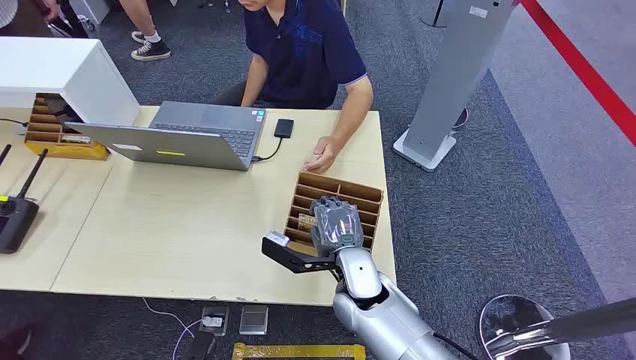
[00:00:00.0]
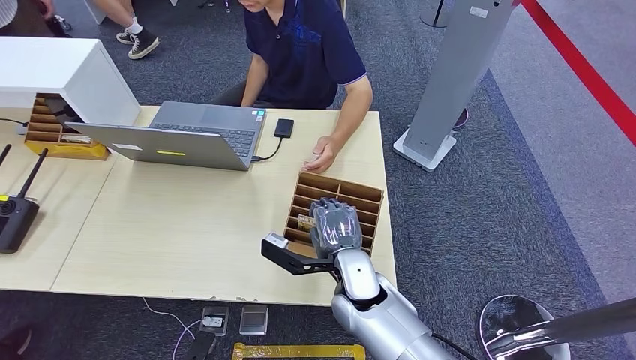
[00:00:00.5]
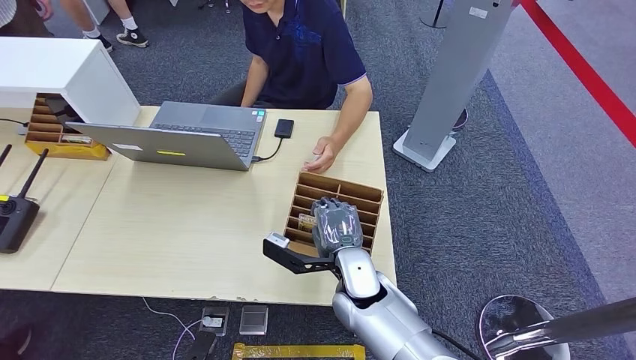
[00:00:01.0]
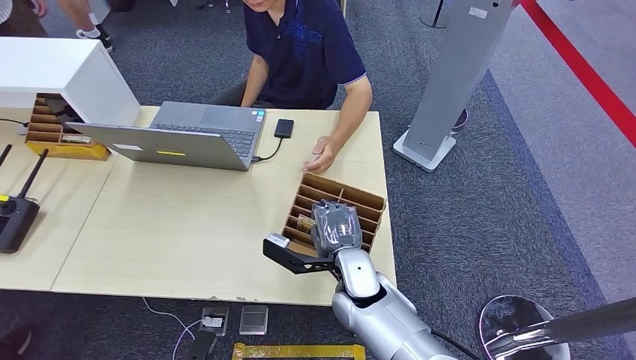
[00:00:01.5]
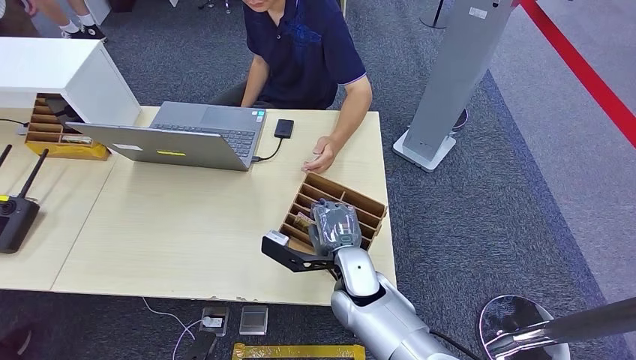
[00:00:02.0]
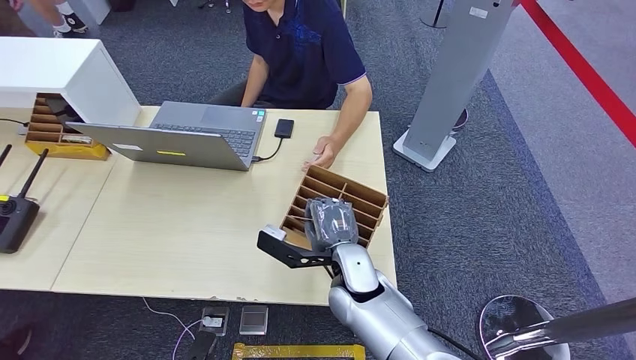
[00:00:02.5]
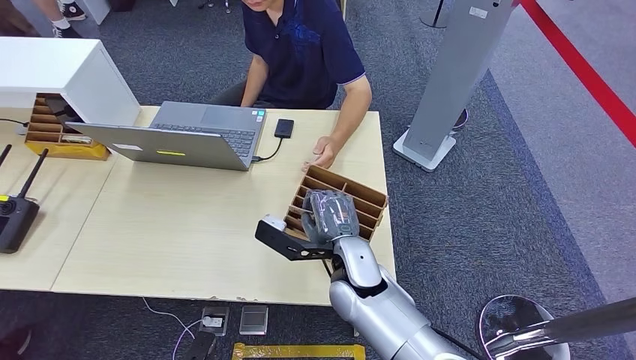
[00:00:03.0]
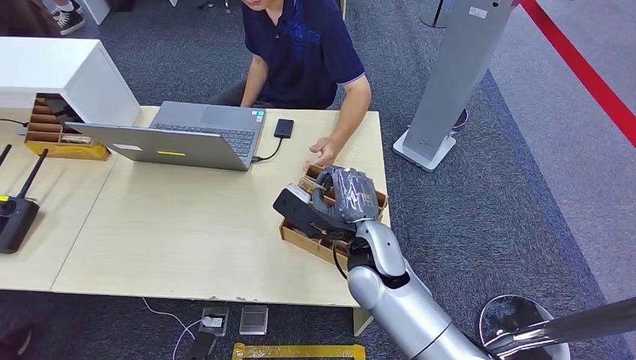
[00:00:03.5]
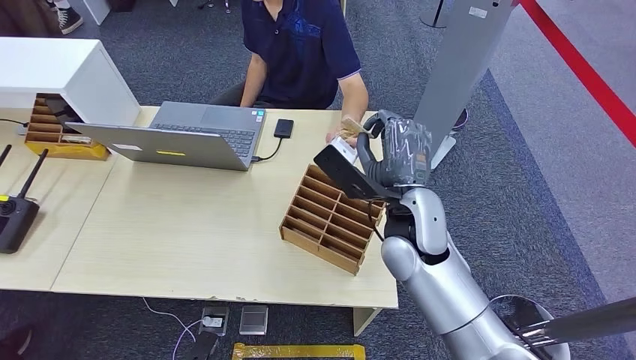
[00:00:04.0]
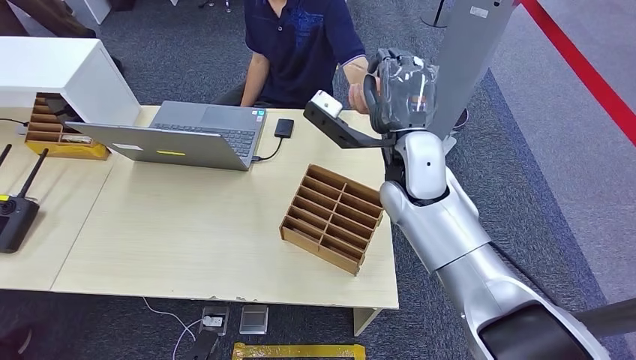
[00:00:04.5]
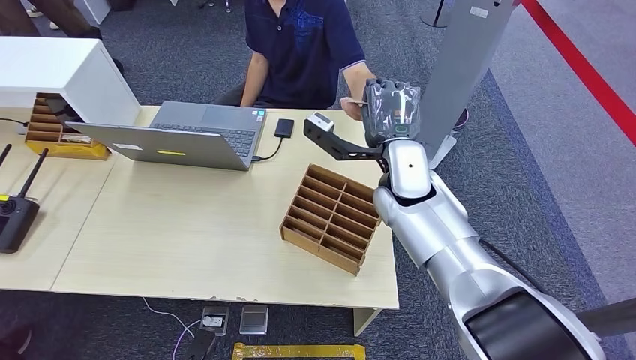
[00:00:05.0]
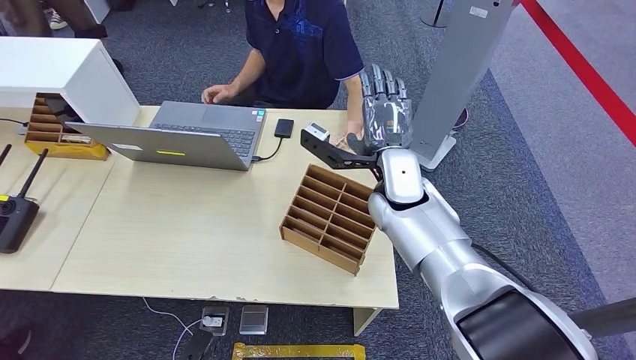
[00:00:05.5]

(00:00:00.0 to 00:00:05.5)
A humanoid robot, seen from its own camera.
Step, 00:00:00.0 - 00:00:03.5: Pick up the room card from the card holder.
Step, 00:00:04.5 - 00:00:05.5: Hand the room card to the target.
00:00:02.0 - 00:00:03.5: The right hand moves upward and to the right, some 15 cm.
00:00:03.5 - 00:00:05.5: The right hand moves forward, about 10 cm.
